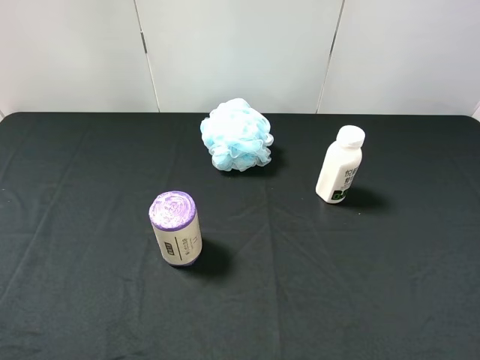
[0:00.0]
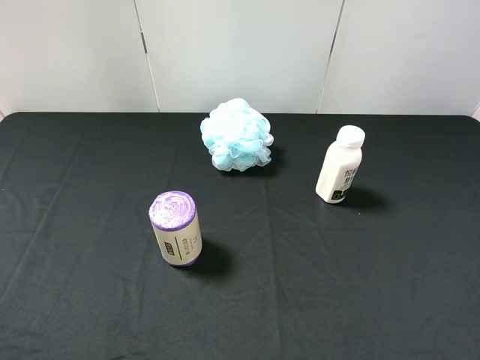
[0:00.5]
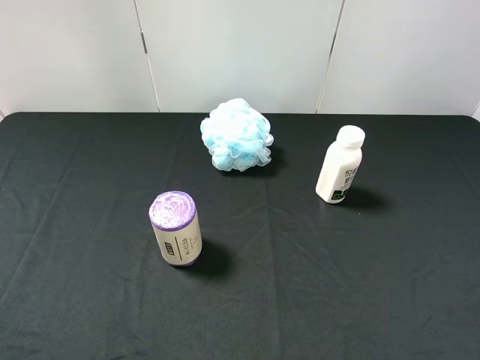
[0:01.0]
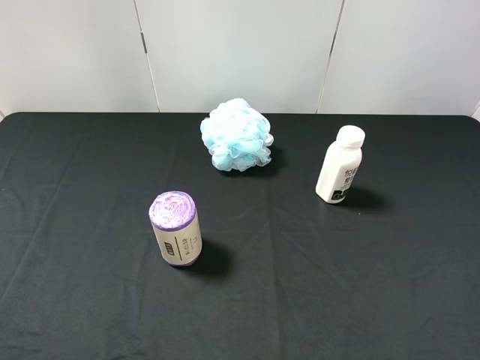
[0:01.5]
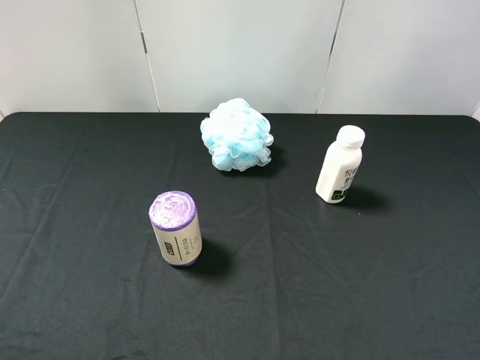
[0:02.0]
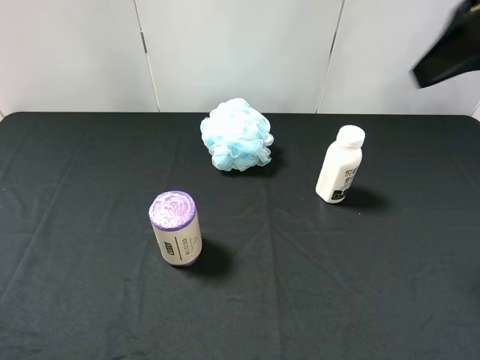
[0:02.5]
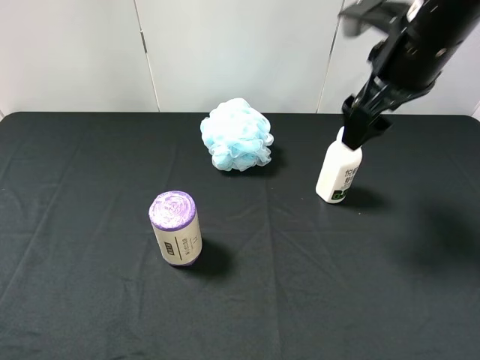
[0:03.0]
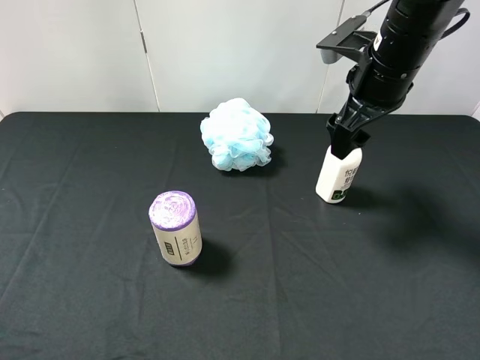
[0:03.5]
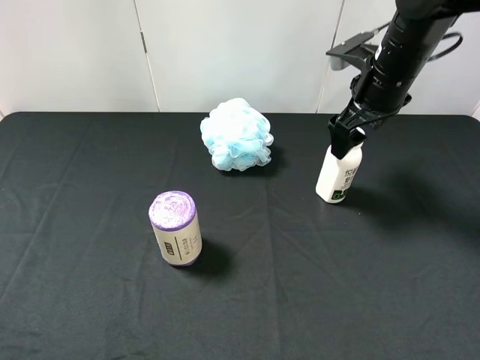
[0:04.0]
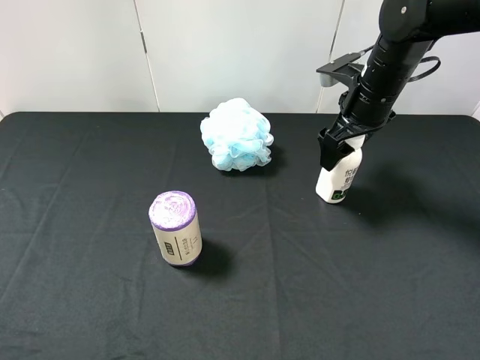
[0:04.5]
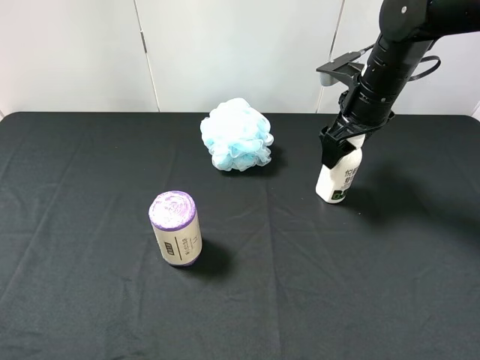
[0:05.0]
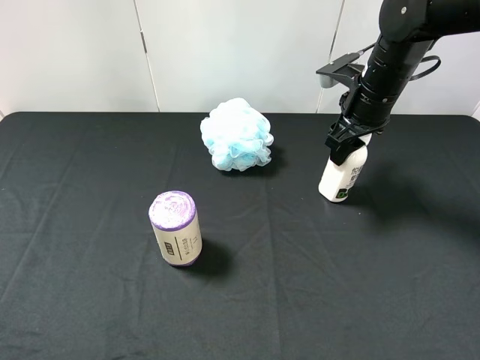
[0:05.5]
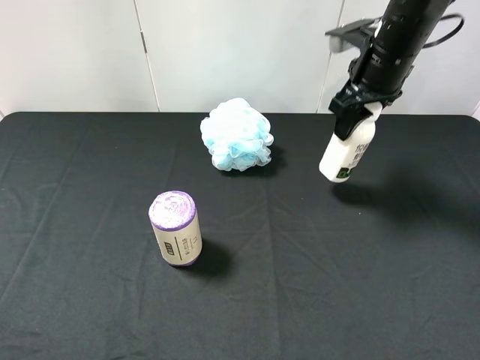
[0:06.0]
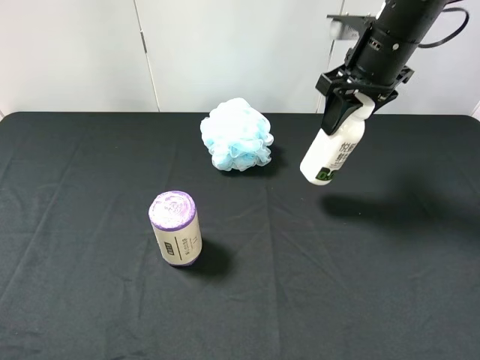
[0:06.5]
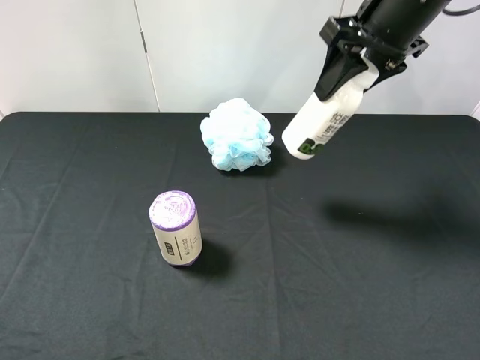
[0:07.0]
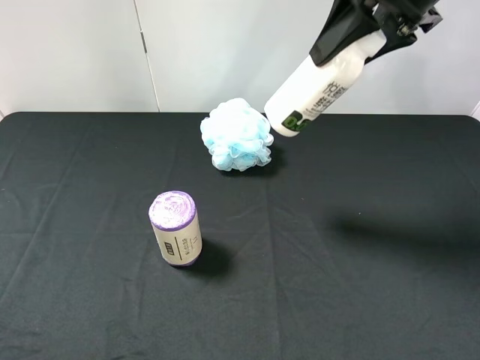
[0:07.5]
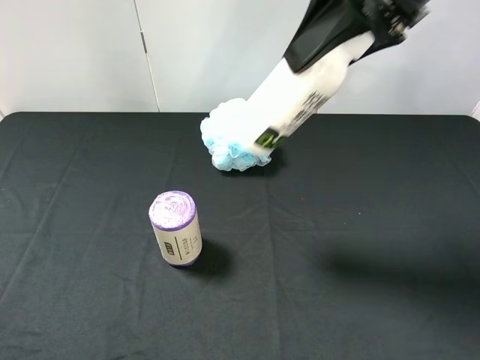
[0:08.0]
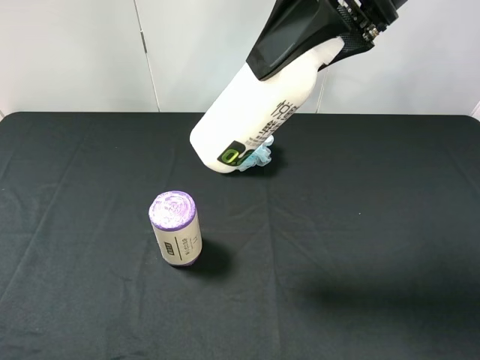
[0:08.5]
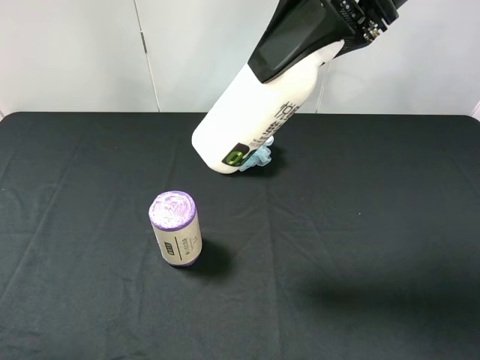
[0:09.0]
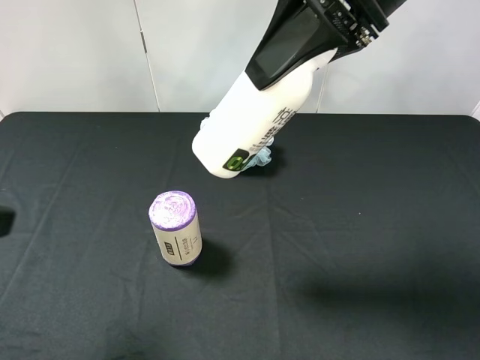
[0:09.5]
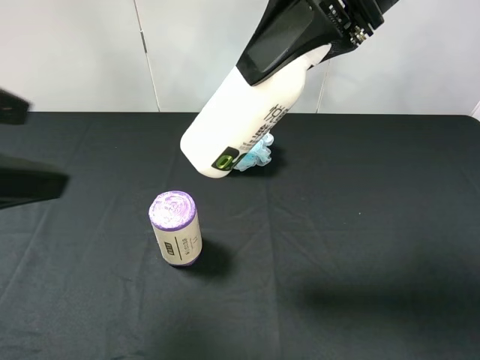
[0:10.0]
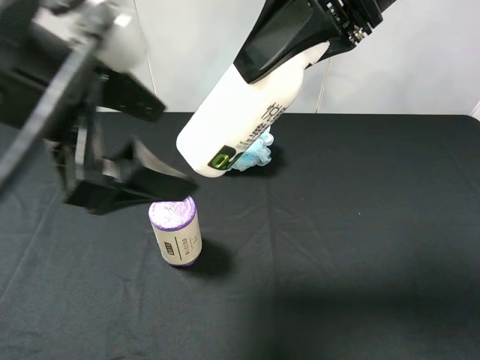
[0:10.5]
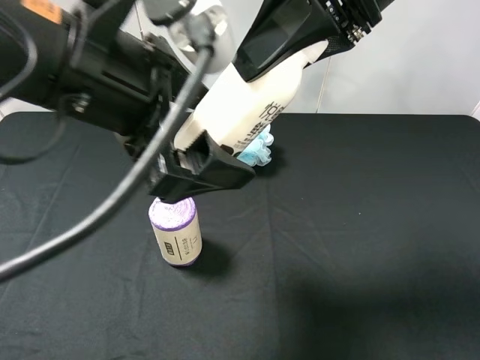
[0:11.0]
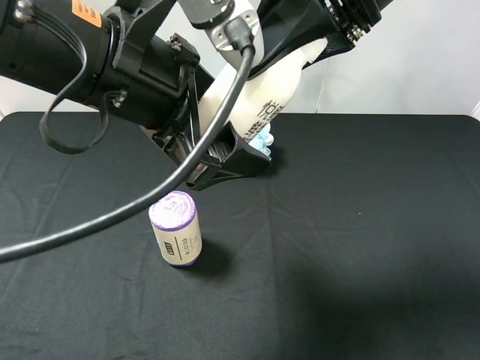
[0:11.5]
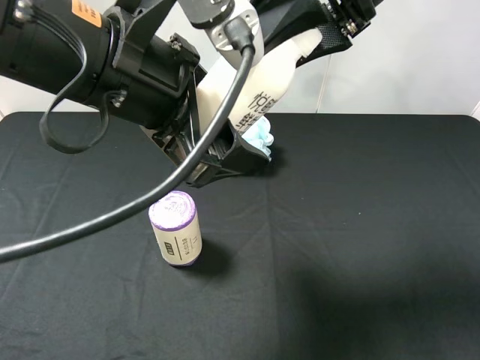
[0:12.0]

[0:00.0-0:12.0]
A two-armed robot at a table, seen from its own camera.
Task of the whole recording: use the right gripper to pick up the item and transfer it from the right gripper to the left gripper.
Step, 0:00.0 to 0:05.5: Use the right gripper to grab the milk on the right side of the table.
0:02.0 to 0:04.0: The right gripper travels forward and downward by some 30 cm.
0:04.0 to 0:06.0: The right gripper closes.
0:06.0 to 0:08.0: The right gripper shifts roughly 20 cm upward, backward and to the left.
0:08.0 to 0:10.0: The left gripper is displaced forward, to the right and upward by approximately 15 cm.
0:10.0 to 0:12.0: The left gripper travels to the right and forward by roughly 15 cm.

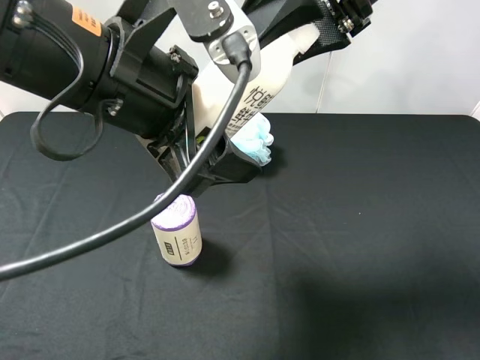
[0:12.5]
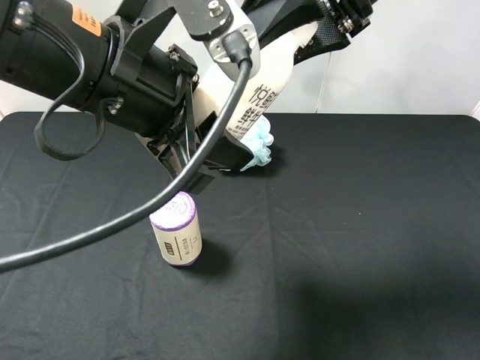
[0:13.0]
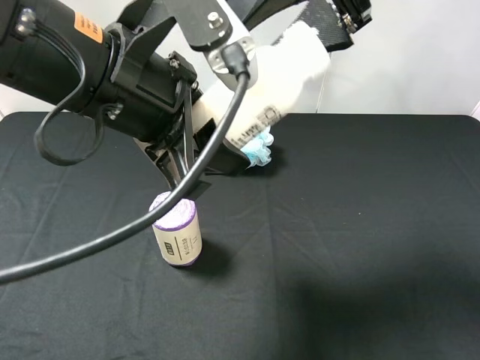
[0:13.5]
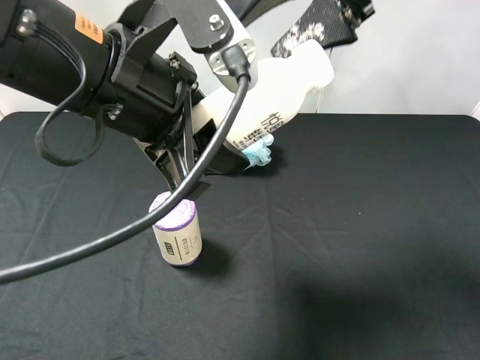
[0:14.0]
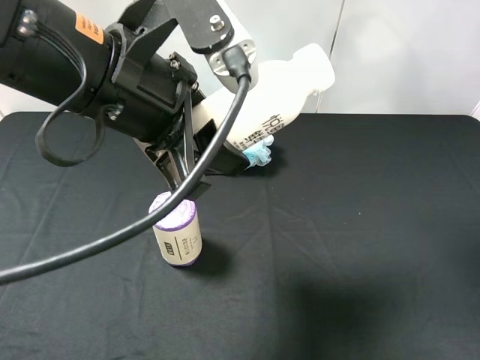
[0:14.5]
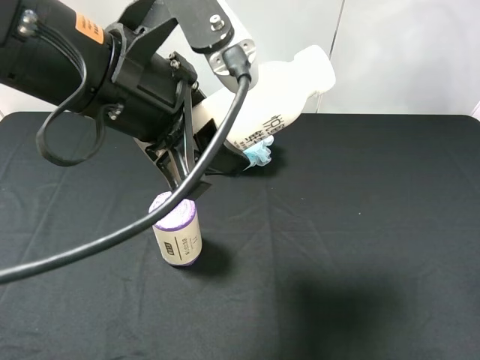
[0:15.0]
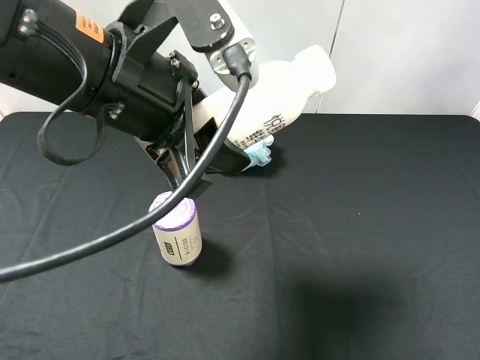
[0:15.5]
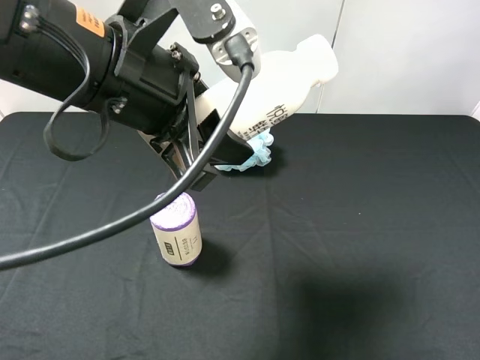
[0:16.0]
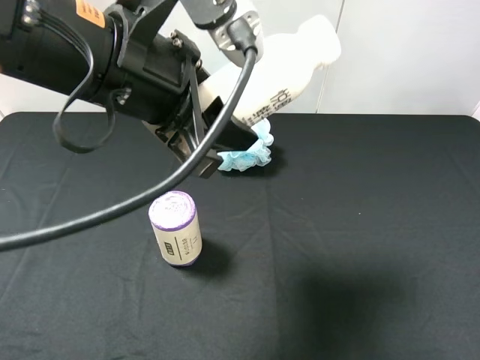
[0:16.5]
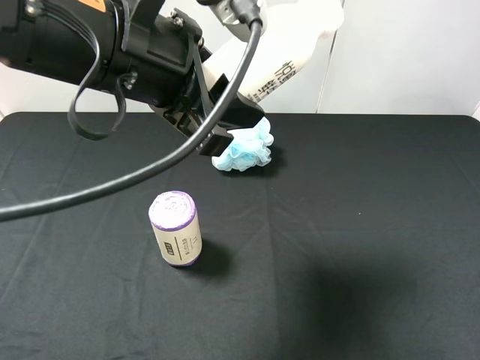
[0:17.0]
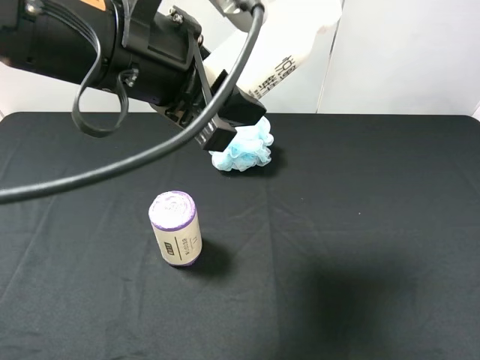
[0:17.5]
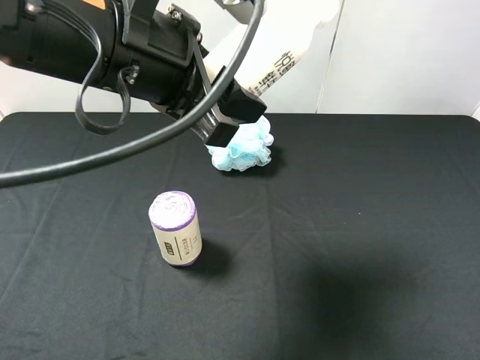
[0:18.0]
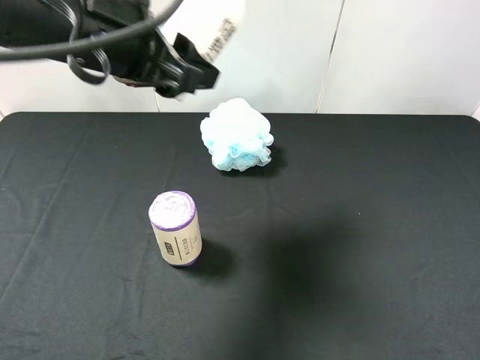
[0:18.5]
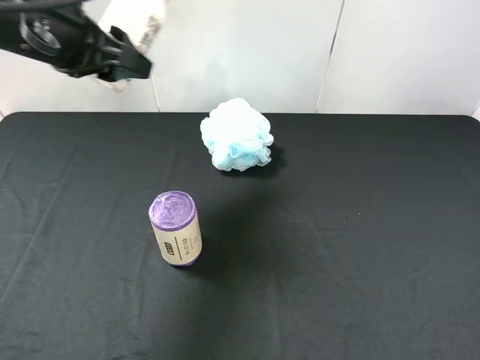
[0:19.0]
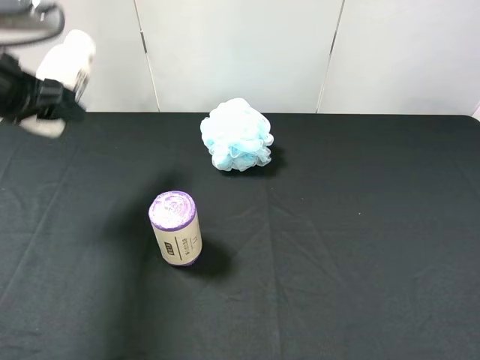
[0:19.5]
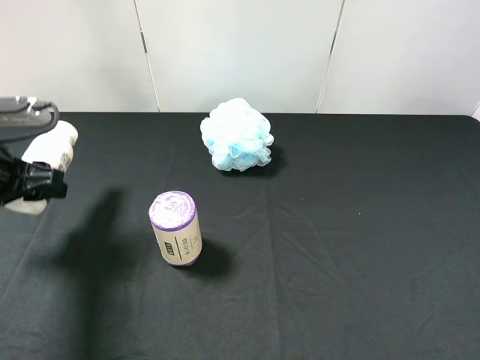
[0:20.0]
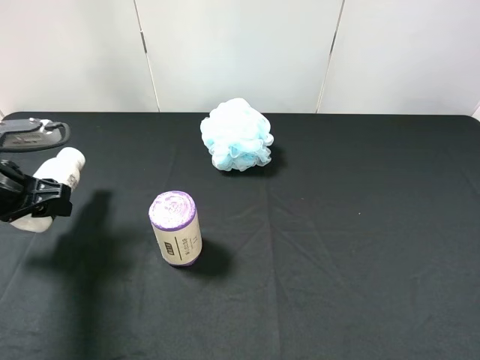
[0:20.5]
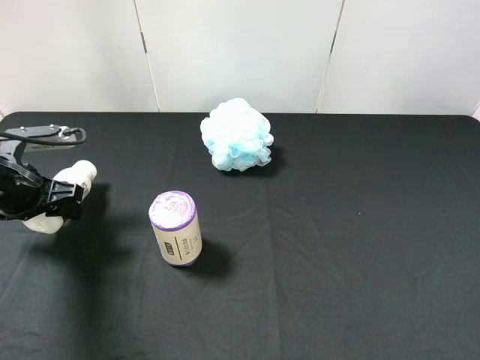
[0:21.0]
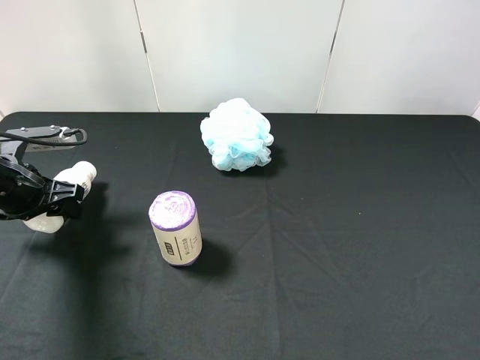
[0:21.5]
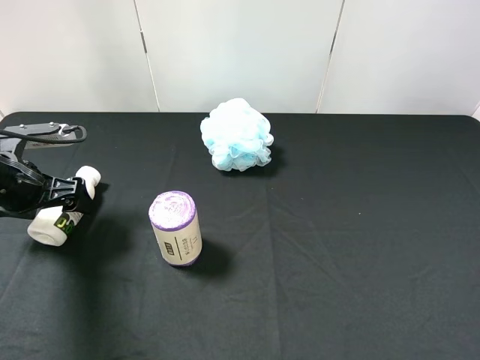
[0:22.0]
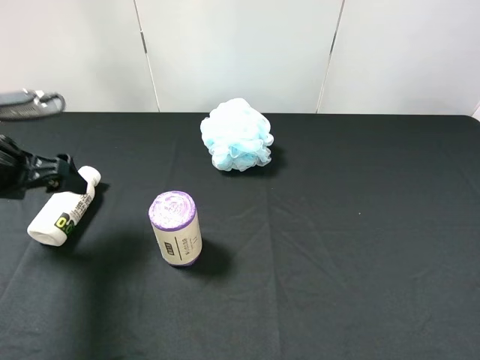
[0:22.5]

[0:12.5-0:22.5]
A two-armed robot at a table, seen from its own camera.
Task of the whole recording: use the right gripper to pick up the item and transfer it from the right gripper to the left gripper.
Step, 0:14.0 to 0:22.0: The left gripper places milk on the left side of the table.
0:12.5 to 0:14.5: The left gripper closes its fingers, while the right gripper moves upward, approximately 5 cm, and opens.
0:14.5 to 0:16.5: The right gripper travels backward, to the right and downward by approximately 35 cm.
0:16.5 to 0:18.5: The left gripper moves about 5 cm.
0:18.5 to 0:20.5: The left gripper moves to the left and downward, about 25 cm.
0:20.5 to 0:22.5: The left gripper opens.

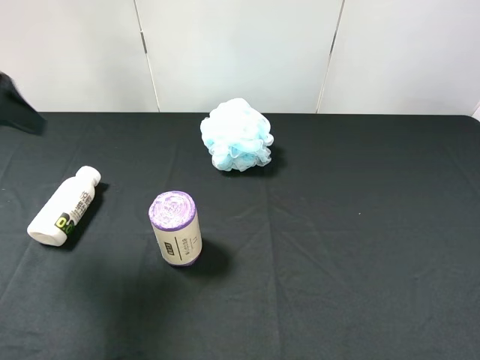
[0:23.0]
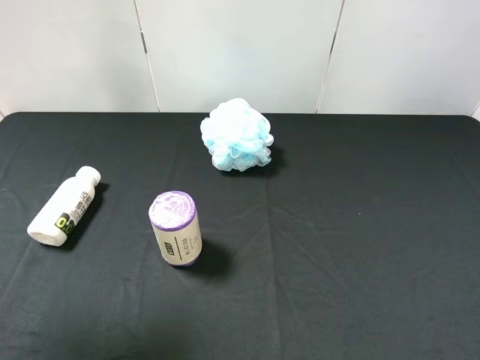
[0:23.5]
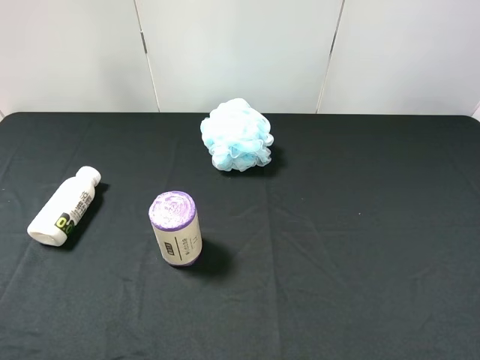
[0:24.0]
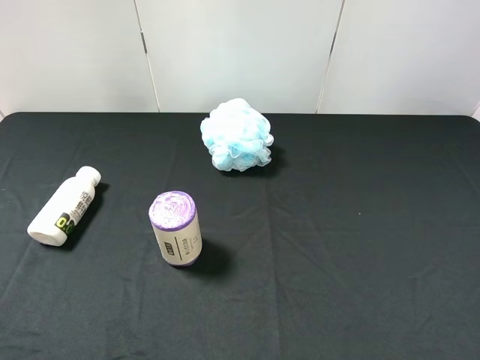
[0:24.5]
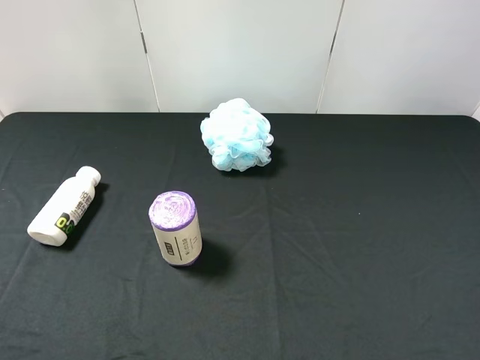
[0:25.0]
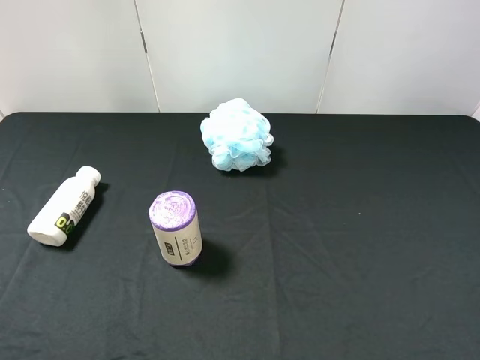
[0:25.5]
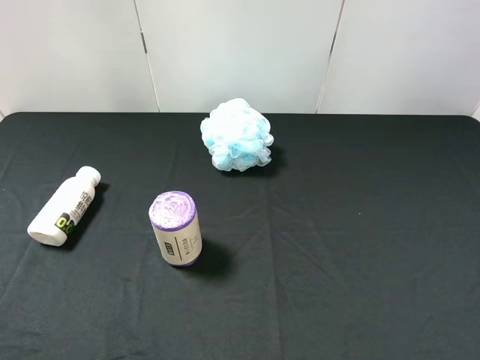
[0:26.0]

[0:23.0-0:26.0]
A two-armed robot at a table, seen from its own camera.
Task of the whole recording: use the right gripper to pick up the item and transfer it from the right gripper to the left gripper.
0:23.0 to 0:24.5: The left gripper moves backward, roughly 20 cm.
